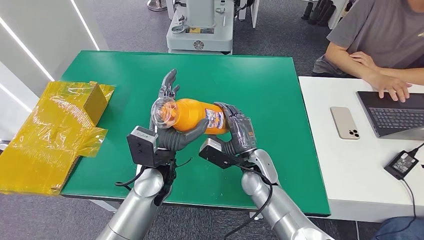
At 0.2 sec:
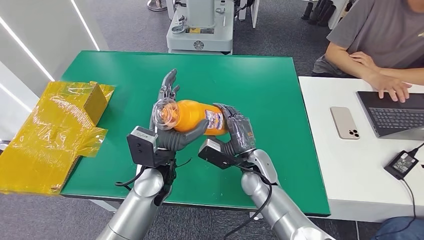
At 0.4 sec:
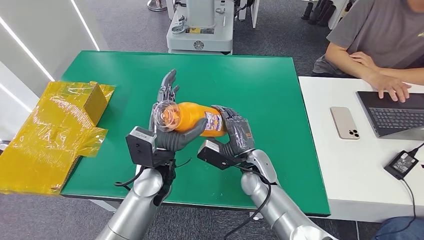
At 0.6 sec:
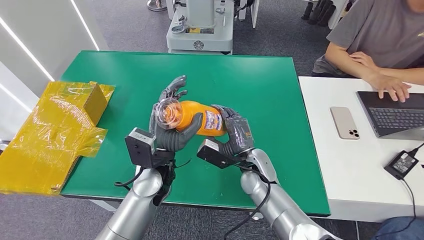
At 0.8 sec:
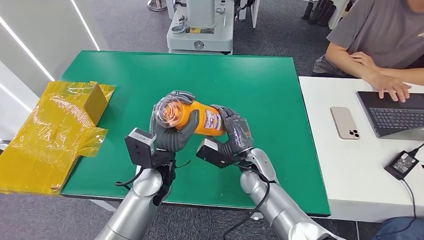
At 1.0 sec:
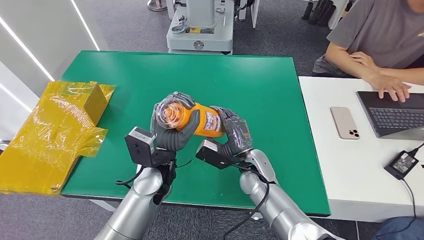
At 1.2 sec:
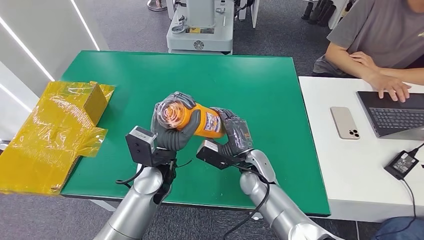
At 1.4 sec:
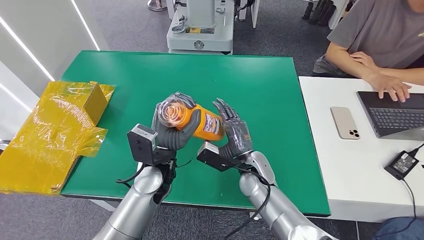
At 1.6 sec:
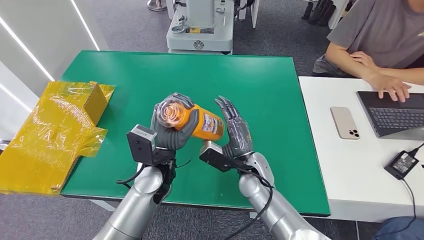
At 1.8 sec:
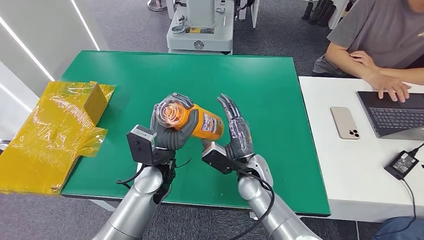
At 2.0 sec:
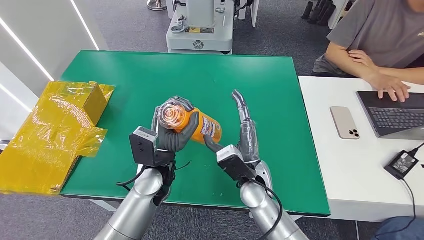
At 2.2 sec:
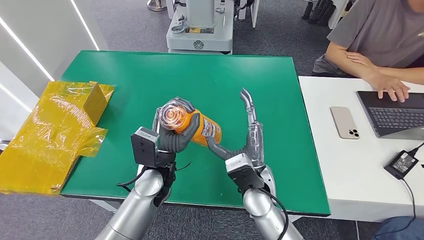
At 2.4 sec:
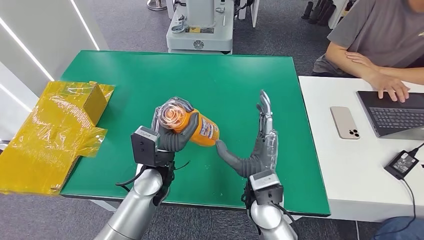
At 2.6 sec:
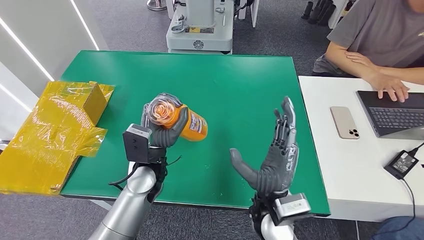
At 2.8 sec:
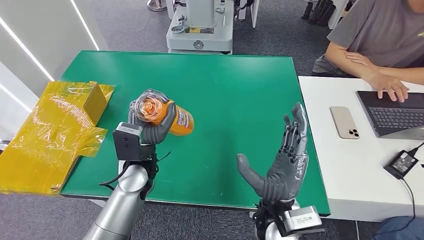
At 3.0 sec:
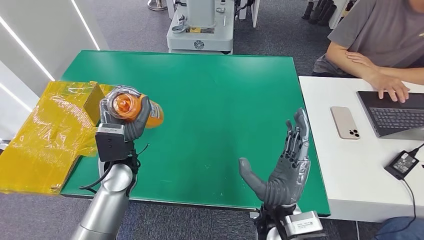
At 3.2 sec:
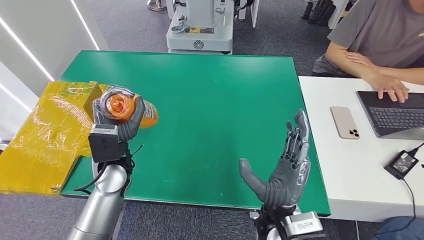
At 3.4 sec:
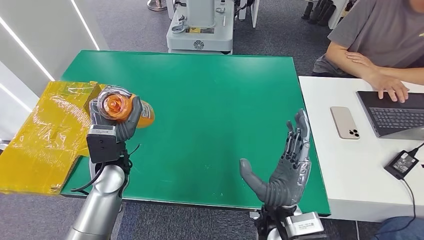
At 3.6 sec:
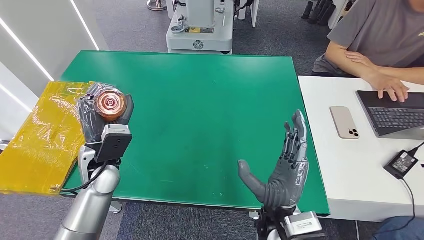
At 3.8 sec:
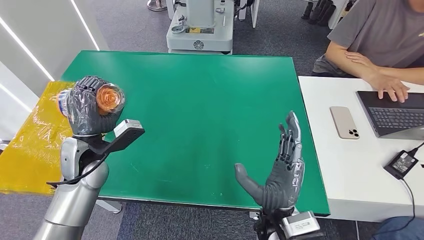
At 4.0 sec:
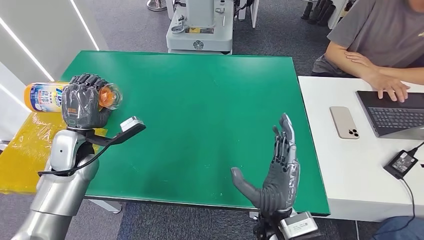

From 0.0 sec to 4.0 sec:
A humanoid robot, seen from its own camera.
Step, from 0.0 sec to 4.0 sec: Turn the bottle to the front side.
From 0.0 sec to 1.4 sec: The two hands keep their place.
From 1.4 sec to 2.6 sec: The right hand heads backward and upward, covering some 15 cm.
From 2.6 sec to 4.0 sec: The left hand travels to the left by roughly 20 cm.

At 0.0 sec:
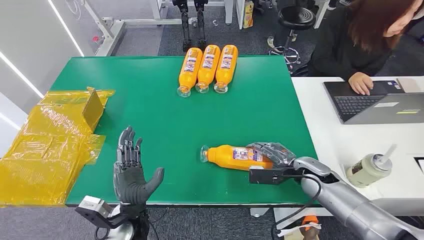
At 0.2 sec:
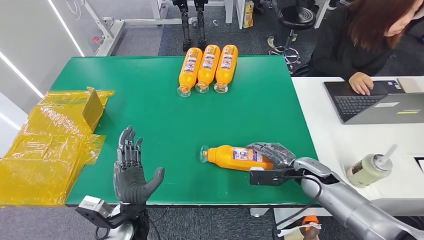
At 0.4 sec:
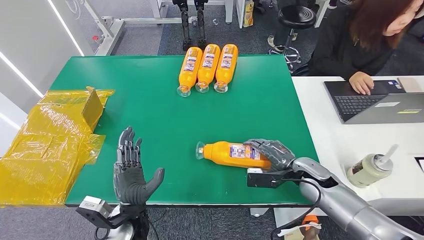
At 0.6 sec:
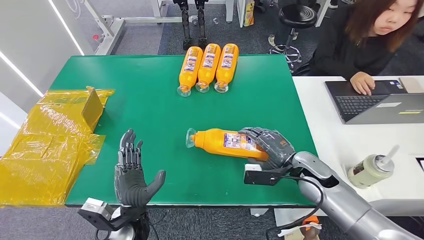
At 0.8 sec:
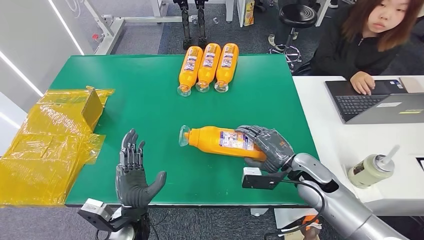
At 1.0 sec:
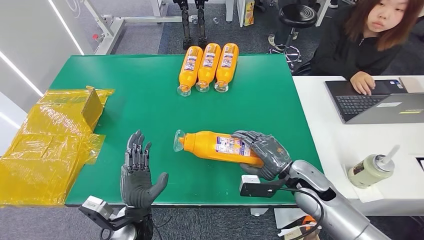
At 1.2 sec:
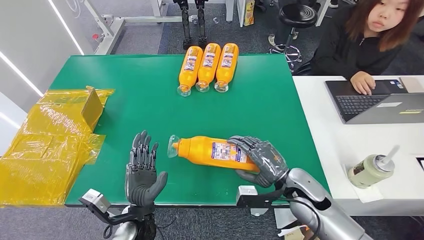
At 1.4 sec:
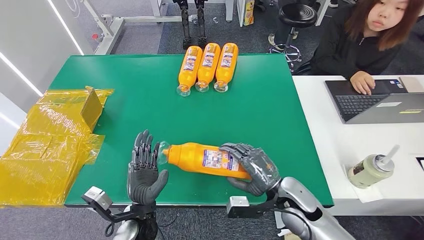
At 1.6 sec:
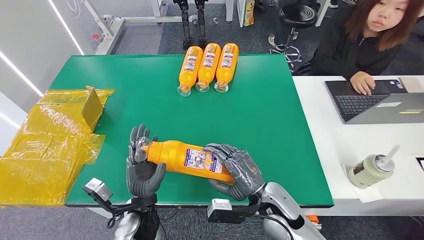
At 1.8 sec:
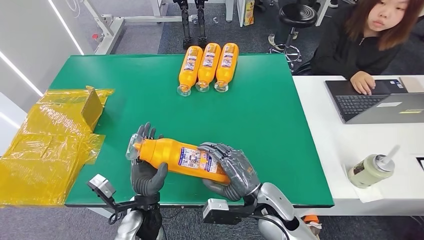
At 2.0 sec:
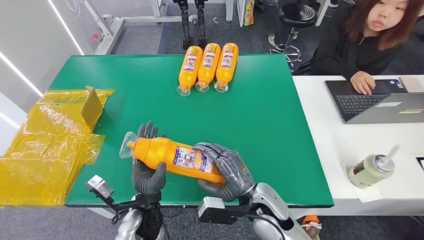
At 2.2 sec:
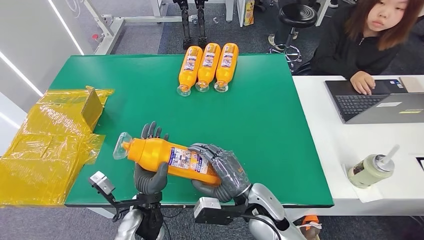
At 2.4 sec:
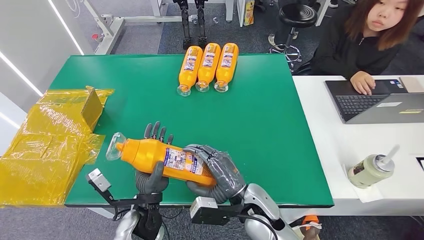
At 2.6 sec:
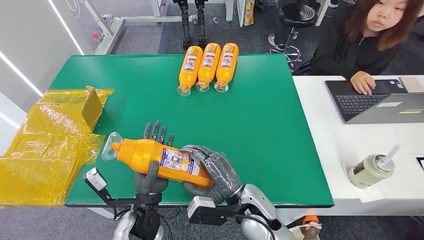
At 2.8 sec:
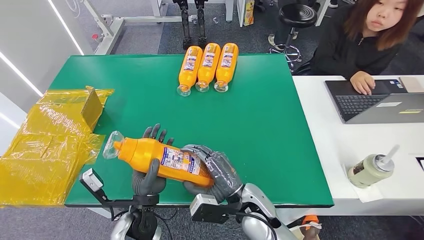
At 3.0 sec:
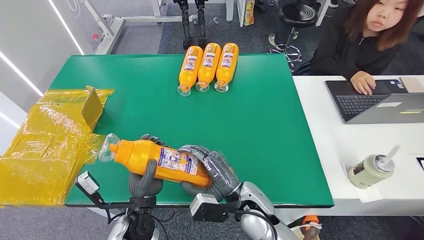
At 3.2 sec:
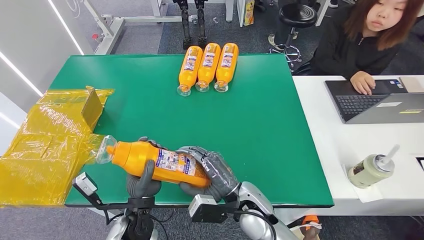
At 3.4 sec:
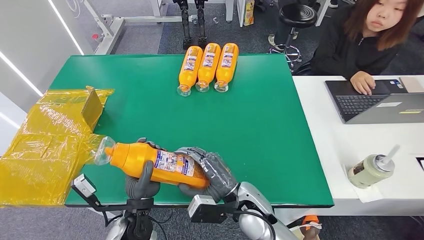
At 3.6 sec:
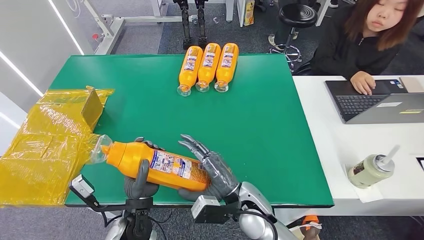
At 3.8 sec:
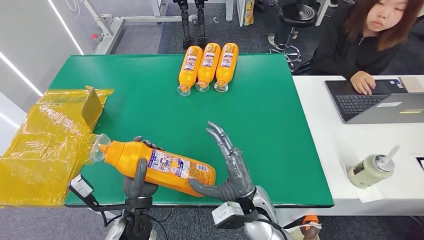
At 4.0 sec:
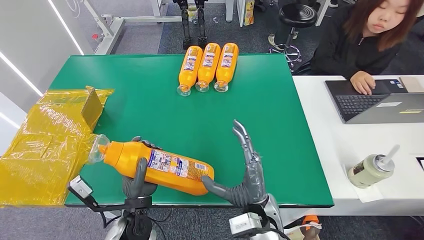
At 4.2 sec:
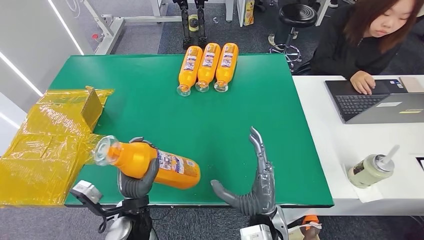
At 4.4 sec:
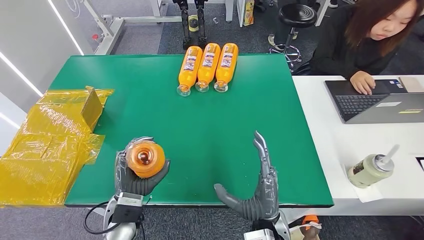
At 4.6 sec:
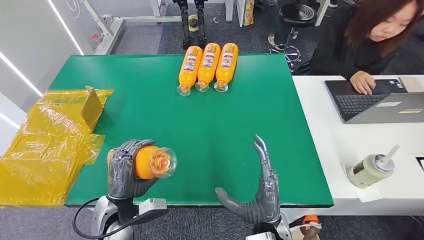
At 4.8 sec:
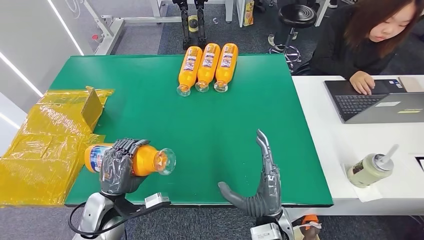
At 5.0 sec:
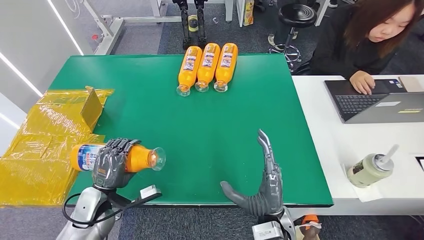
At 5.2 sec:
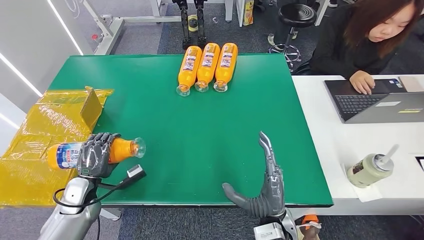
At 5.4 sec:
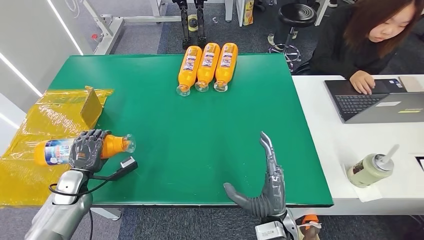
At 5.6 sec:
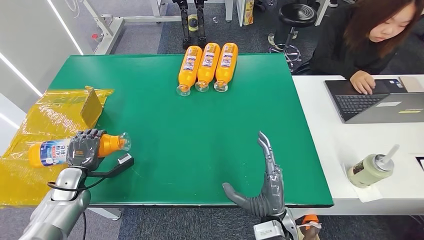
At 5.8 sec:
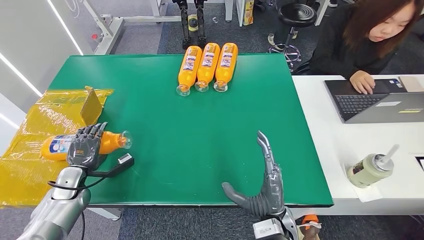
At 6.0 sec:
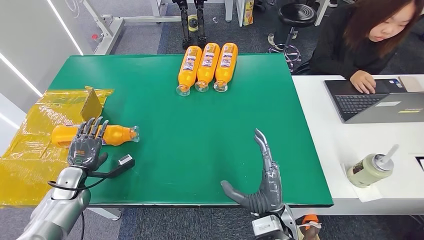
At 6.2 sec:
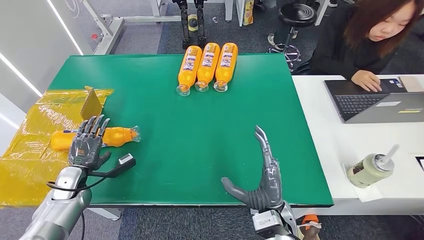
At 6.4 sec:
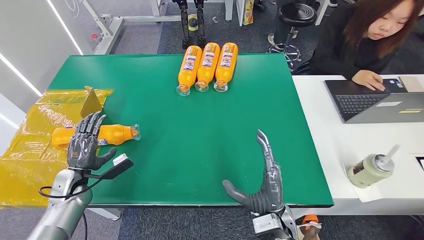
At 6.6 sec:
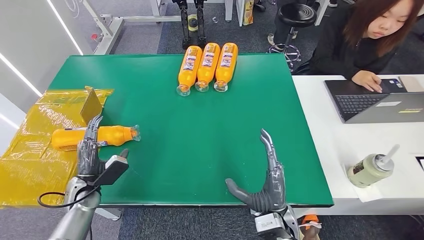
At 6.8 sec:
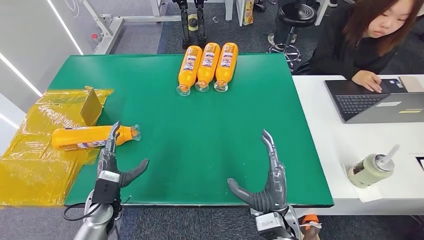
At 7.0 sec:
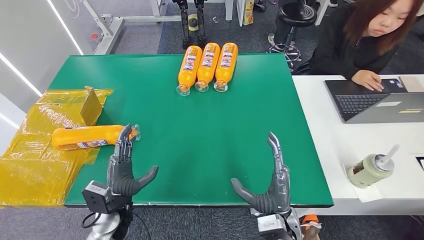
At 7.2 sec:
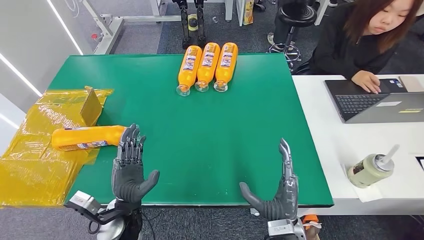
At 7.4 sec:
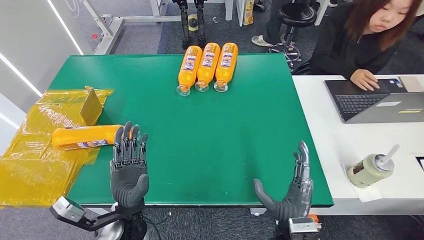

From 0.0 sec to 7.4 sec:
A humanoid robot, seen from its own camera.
Step, from 0.0 sec to 2.4 sec: Pick up the bottle from the table.
Step, from 2.6 sec to 7.4 sec: Turn the bottle to the front side.
From 1.4 sec to 3.0 sec: The right hand heads to the left, covering about 10 cm.
From 3.0 sec to 4.4 sec: The right hand is displaced backward by some 5 cm.
From 4.4 sec to 6.0 sec: The left hand is displaced to the left by about 25 cm.
From 6.0 sec to 7.4 sec: The left hand moves to the right, some 25 cm.
